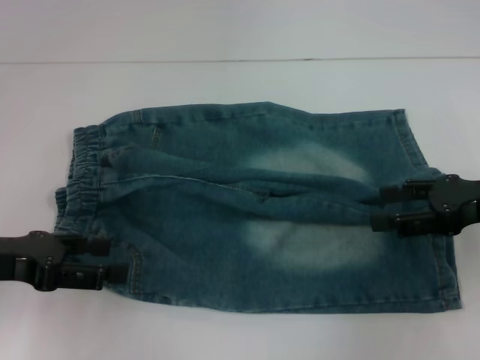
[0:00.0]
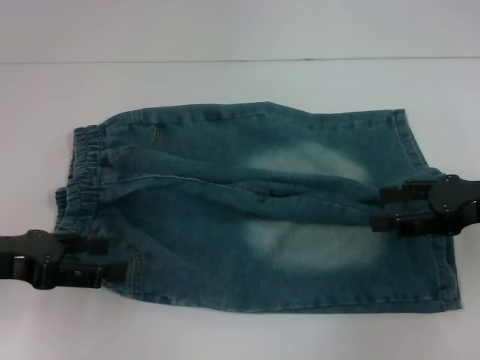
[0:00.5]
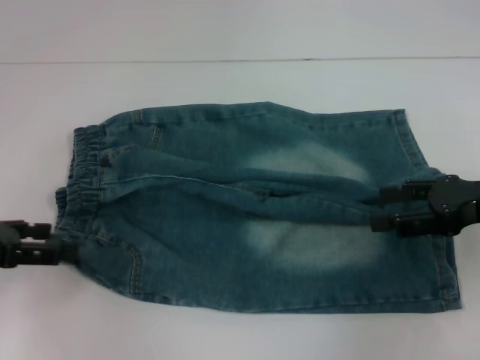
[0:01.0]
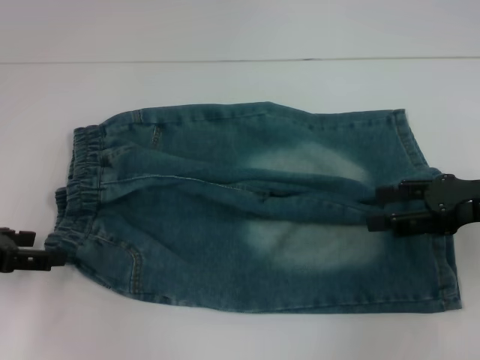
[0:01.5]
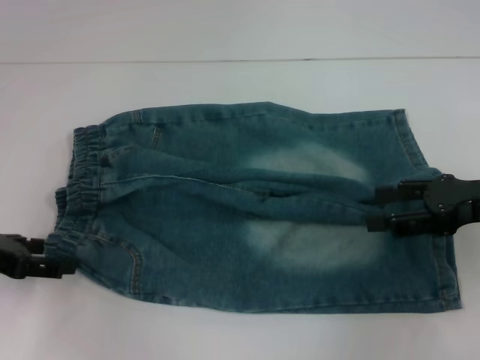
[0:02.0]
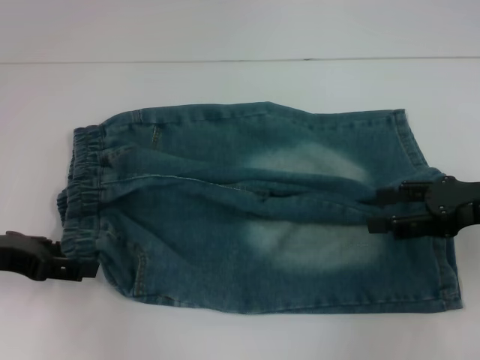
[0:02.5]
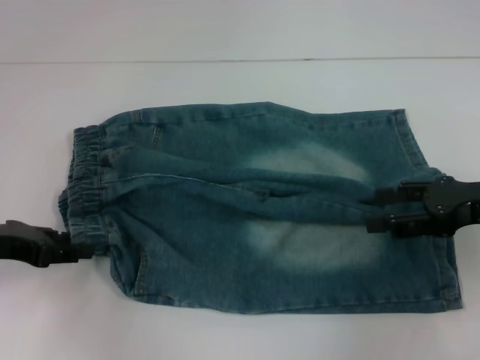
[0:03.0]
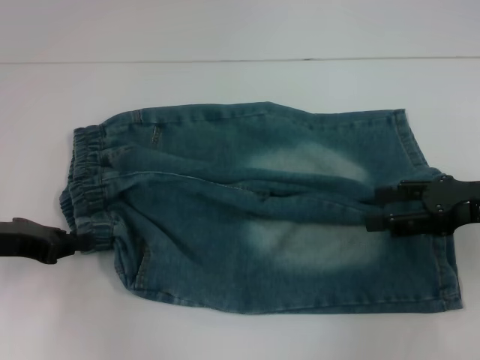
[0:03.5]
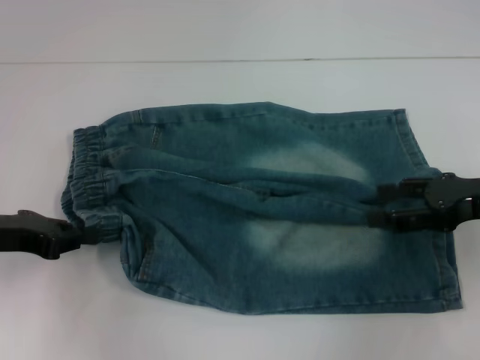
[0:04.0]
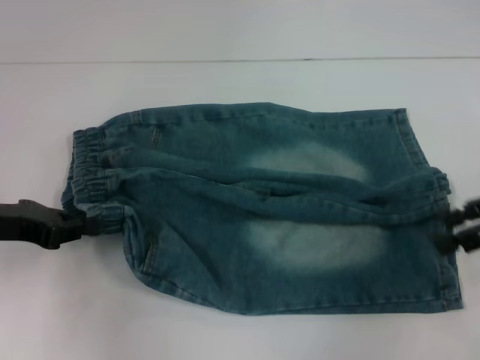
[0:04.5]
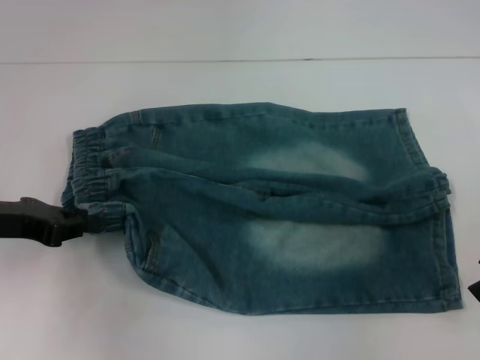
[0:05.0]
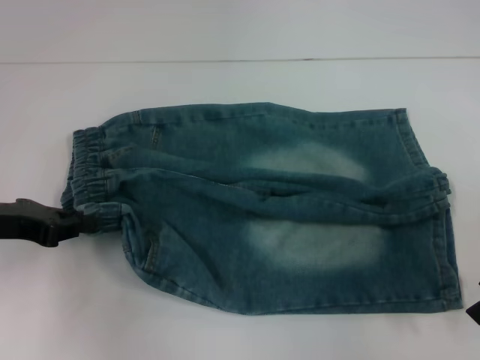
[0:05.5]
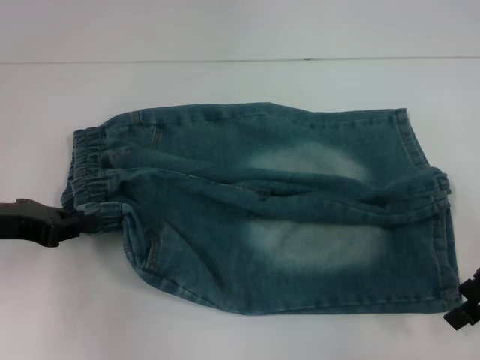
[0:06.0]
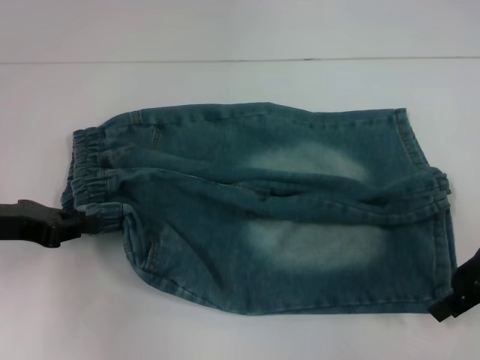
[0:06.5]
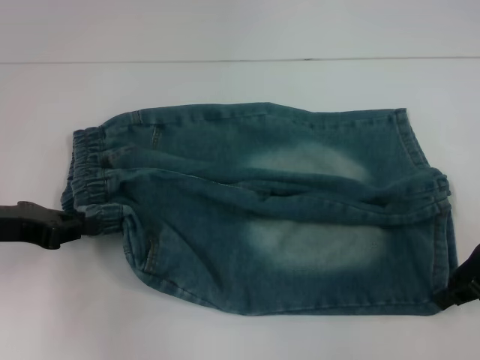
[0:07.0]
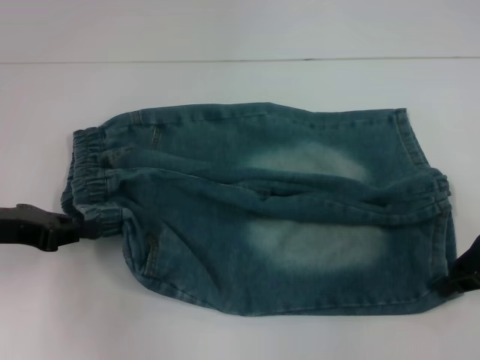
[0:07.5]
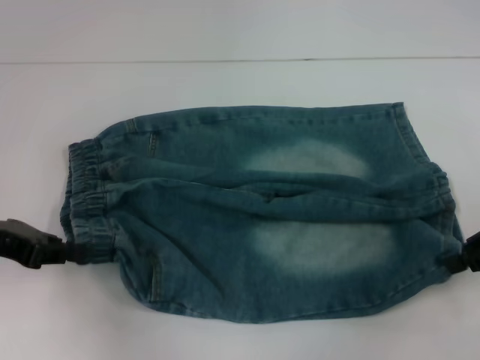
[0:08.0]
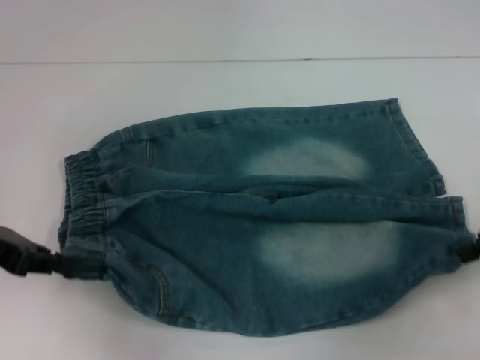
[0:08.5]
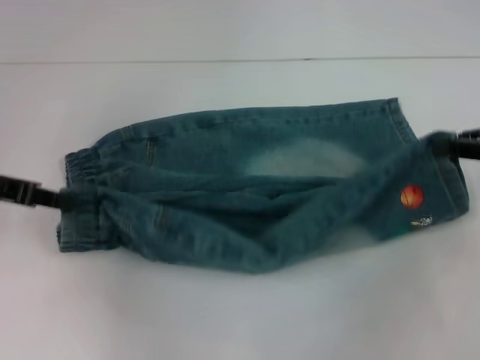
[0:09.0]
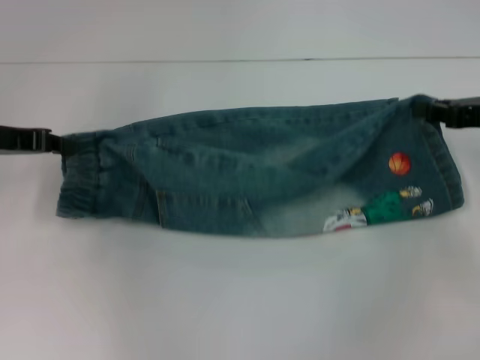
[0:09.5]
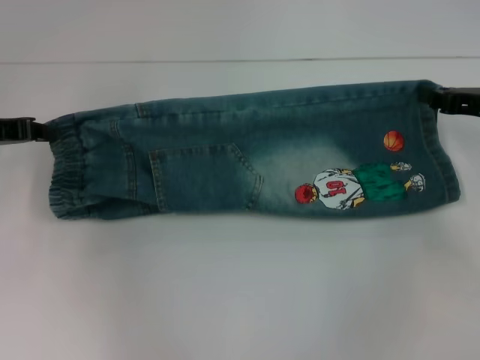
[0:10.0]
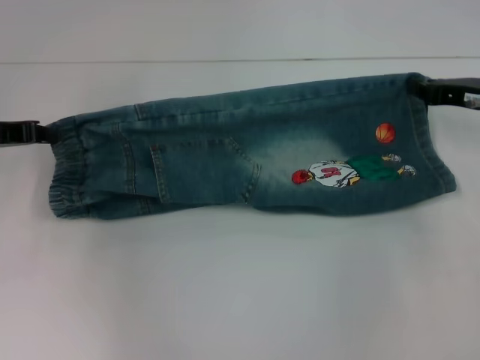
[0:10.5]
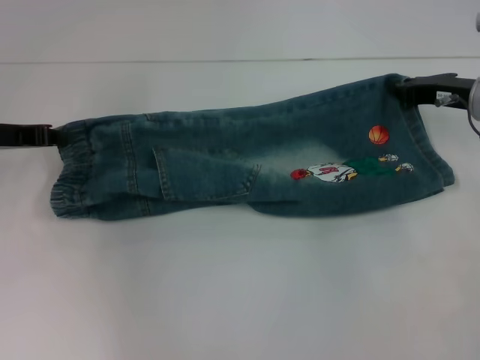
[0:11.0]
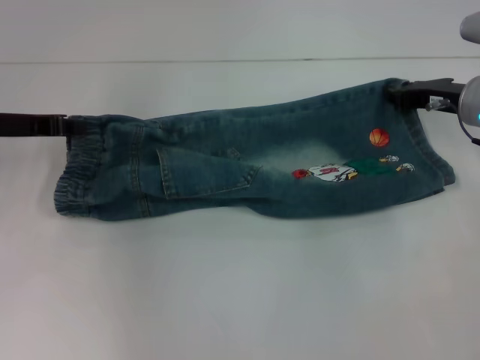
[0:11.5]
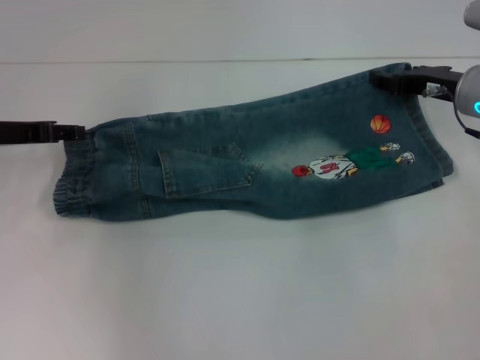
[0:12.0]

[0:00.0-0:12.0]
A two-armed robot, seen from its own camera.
Step, 0:00.0 to 0:03.5: Hold the lower left waistband with your left hand.
Step, 0:04.0 to 0:07.5: Grab the lower right pant leg with your right hand.
Step, 0:08.0 to 0:12.0: Fold upward with your left hand.
0:02.0 to 0:04.0: The left gripper closes its fingers.
0:06.0 to 0:08.0: The right gripper closes.
0:08.0 to 0:10.0: The two grippers go about 5 cm forward.
0:10.0 to 0:12.0: The right gripper heads to the left, covering about 5 cm, and opens its fingers. Meanwhile the left gripper opens up.

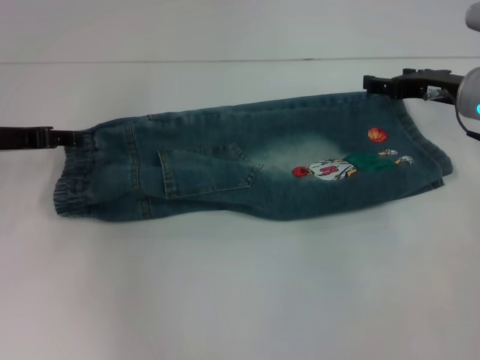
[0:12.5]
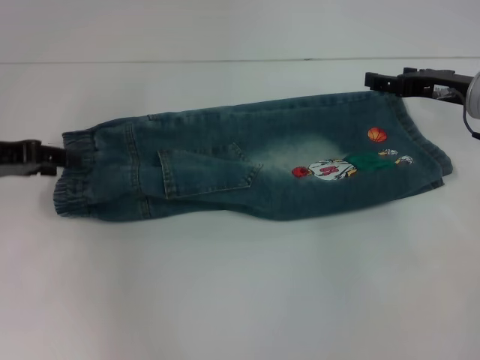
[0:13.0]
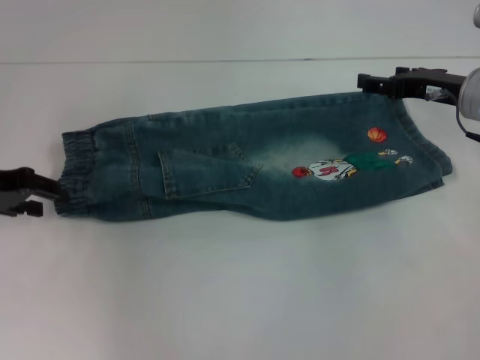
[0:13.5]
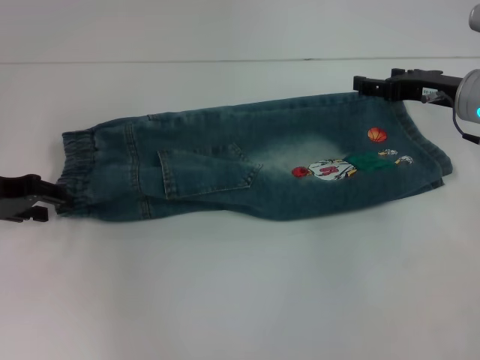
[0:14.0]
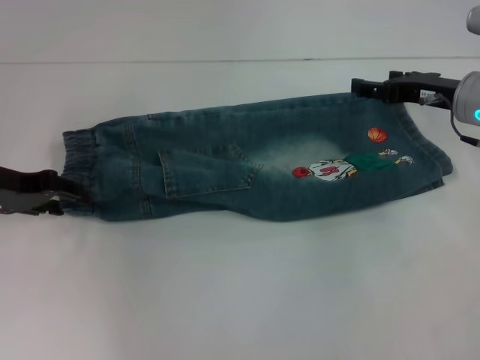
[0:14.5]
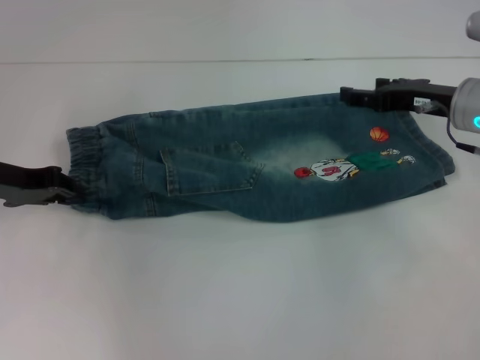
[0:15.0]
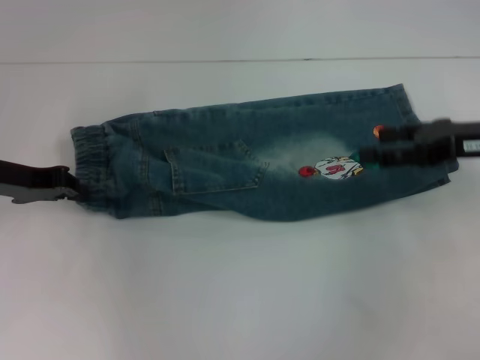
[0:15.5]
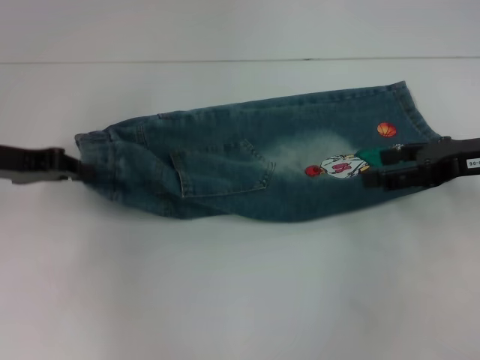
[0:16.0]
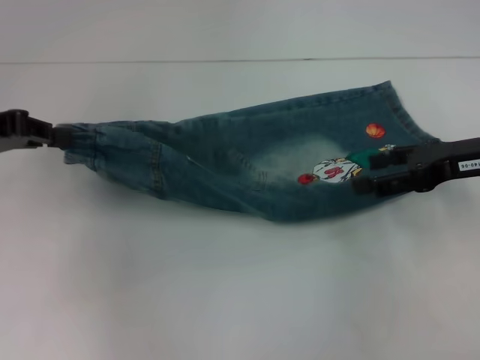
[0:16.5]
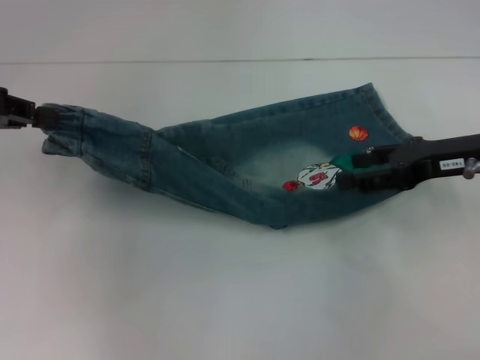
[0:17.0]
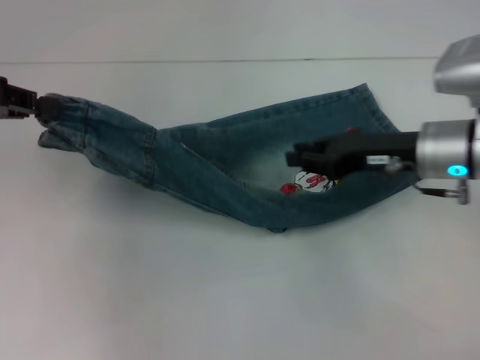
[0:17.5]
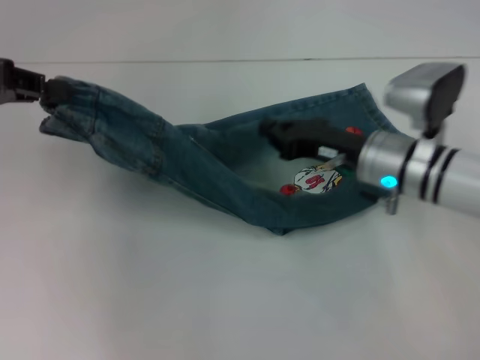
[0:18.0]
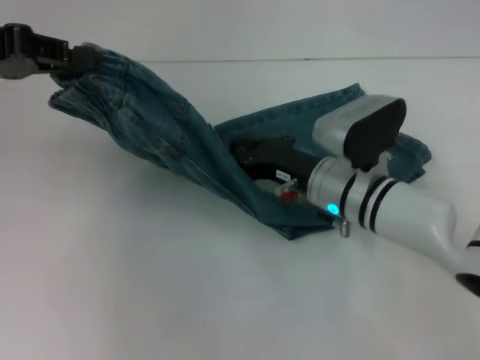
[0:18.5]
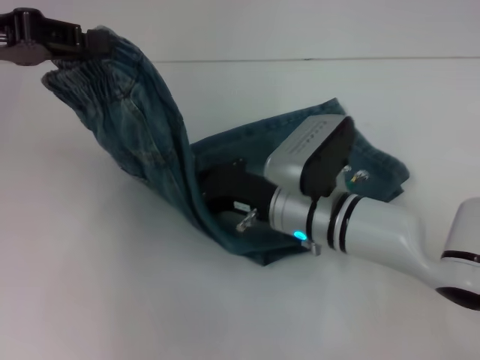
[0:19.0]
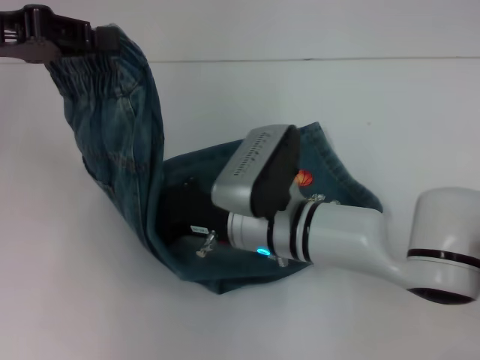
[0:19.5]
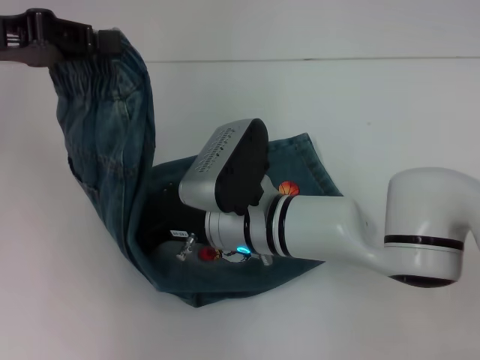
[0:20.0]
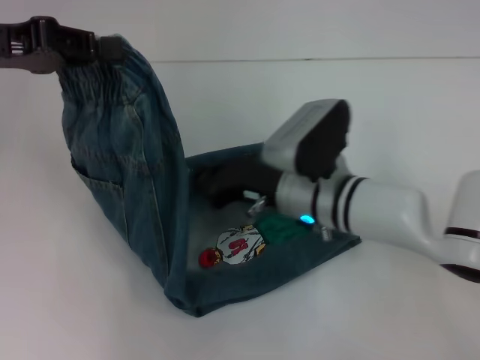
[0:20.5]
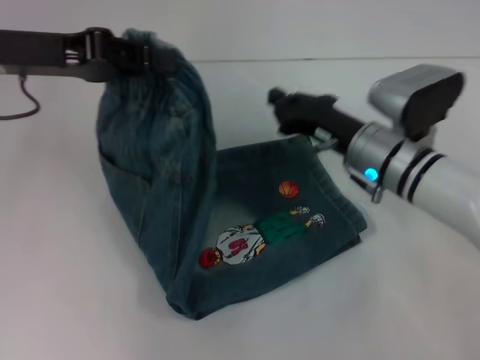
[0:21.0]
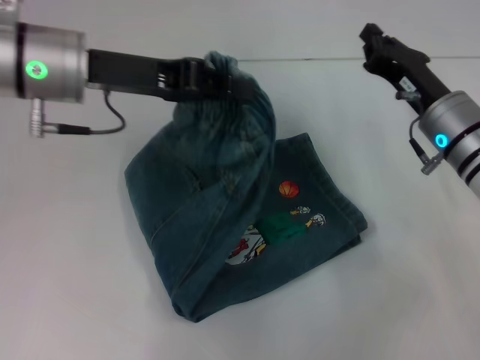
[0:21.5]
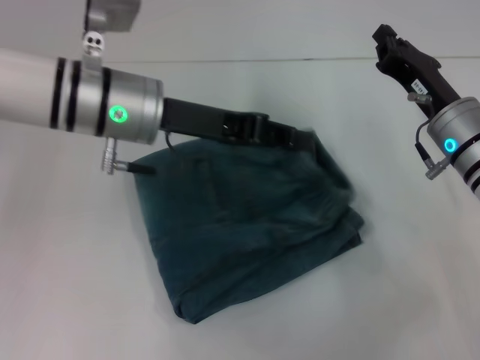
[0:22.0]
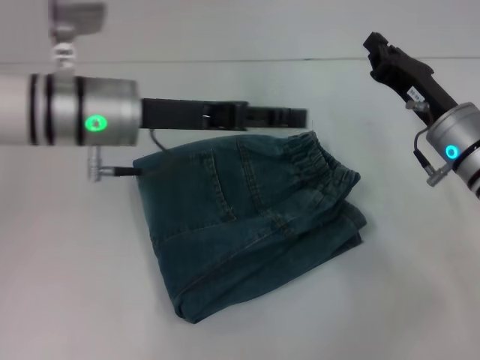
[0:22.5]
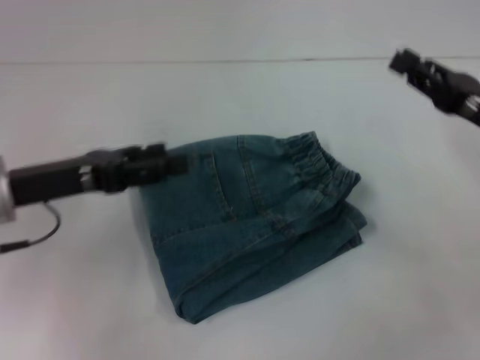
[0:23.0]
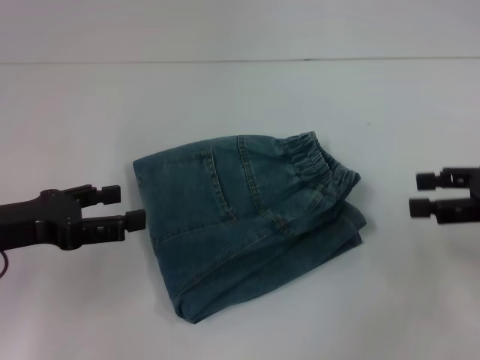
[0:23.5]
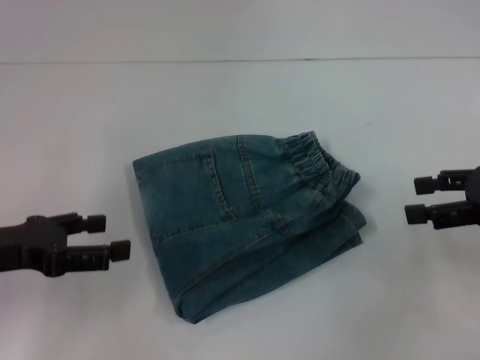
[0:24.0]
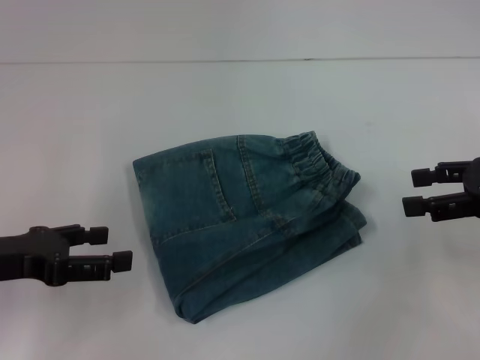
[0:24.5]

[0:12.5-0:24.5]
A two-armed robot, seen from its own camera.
Step, 0:12.5 to 0:15.5: Hold the waistband with your left hand.
Step, 0:16.0 to 0:19.5: Press the middle of the pants with your right hand.
Step, 0:20.5 to 0:22.0: Fold to the right with your left hand.
0:14.5 to 0:16.5: The left gripper goes approximately 5 cm upward, and closes, while the right gripper is displaced backward by roughly 5 cm.
0:16.5 to 0:18.5: The left gripper moves upward, approximately 5 cm. Meanwhile the right gripper heads to the left and downward, covering approximately 20 cm, and closes its fingers.
0:18.5 to 0:20.5: The right gripper moves about 10 cm to the left and comes back.
0:20.5 to 0:22.5: The left gripper heads to the right and downward, covering some 15 cm, and opens. The right gripper is displaced to the right by approximately 15 cm.
0:22.5 to 0:24.5: The left gripper travels to the left and backward by approximately 20 cm, and opens up; the right gripper heads to the right, upward and backward, covering about 15 cm, and opens.
